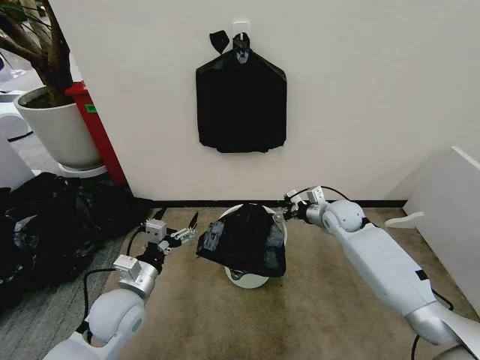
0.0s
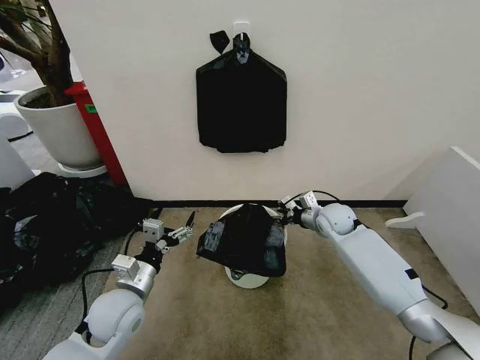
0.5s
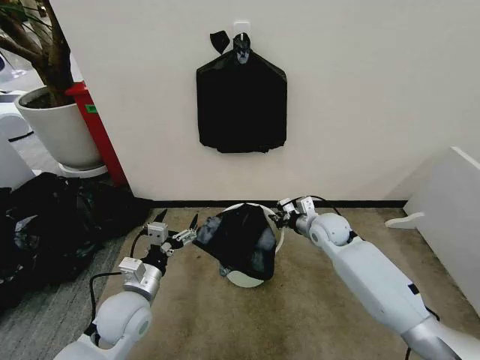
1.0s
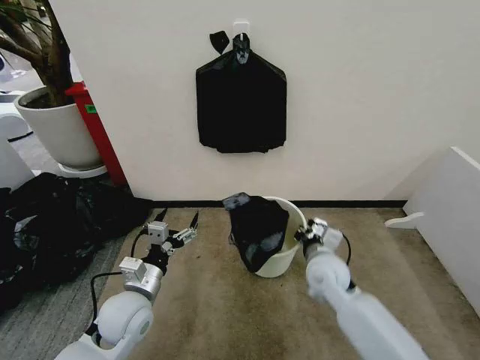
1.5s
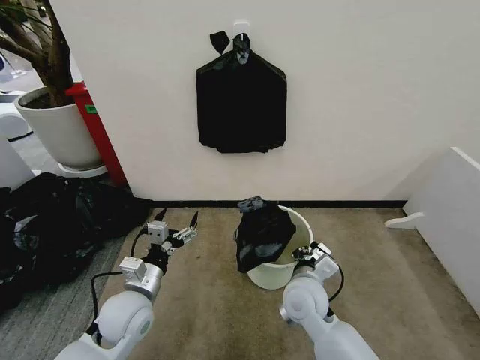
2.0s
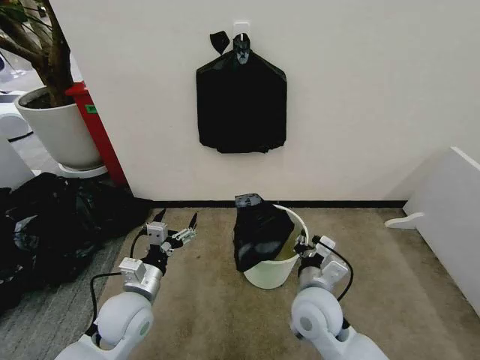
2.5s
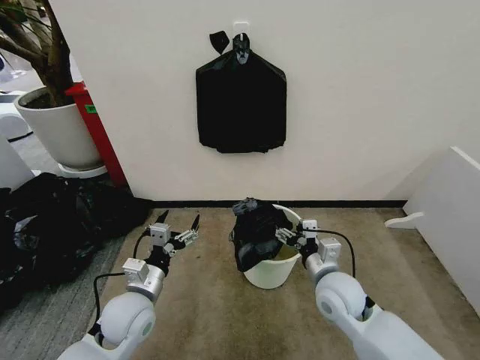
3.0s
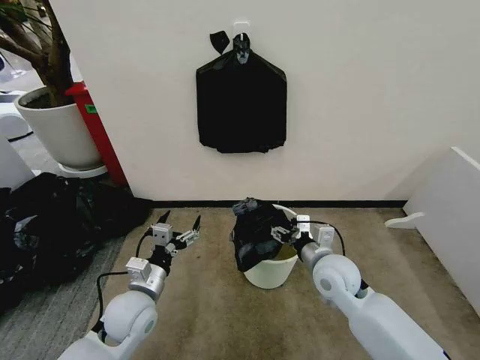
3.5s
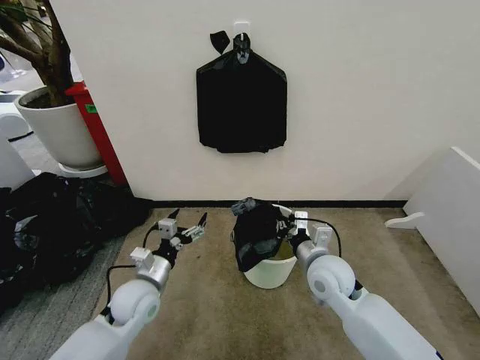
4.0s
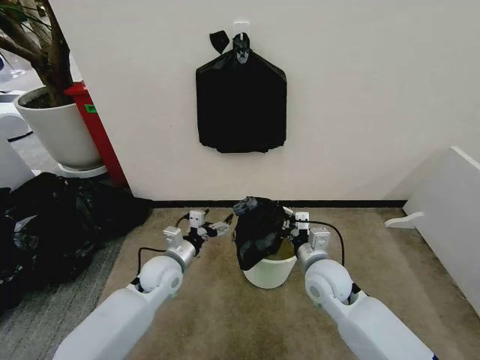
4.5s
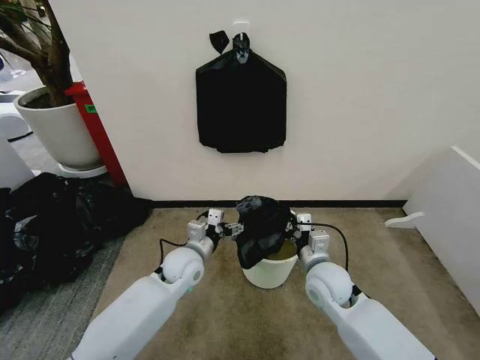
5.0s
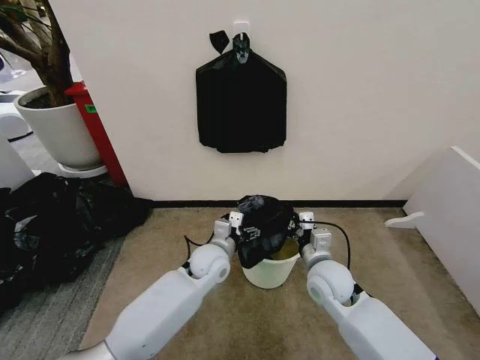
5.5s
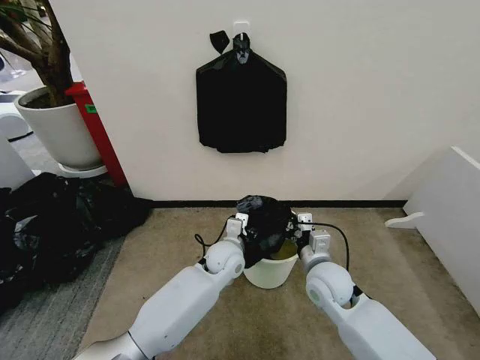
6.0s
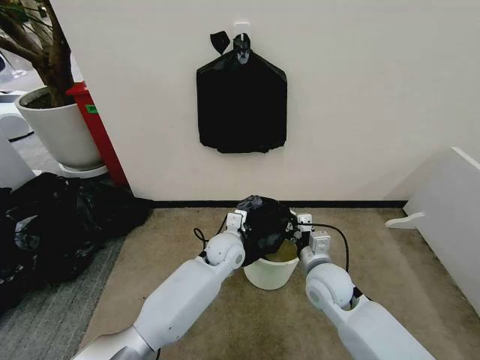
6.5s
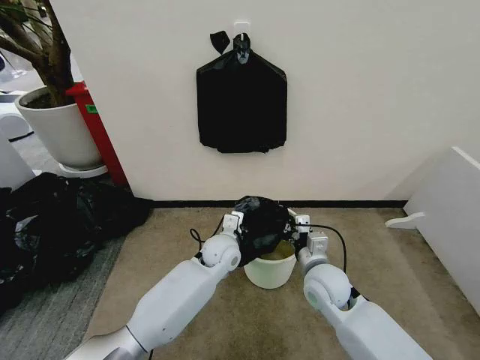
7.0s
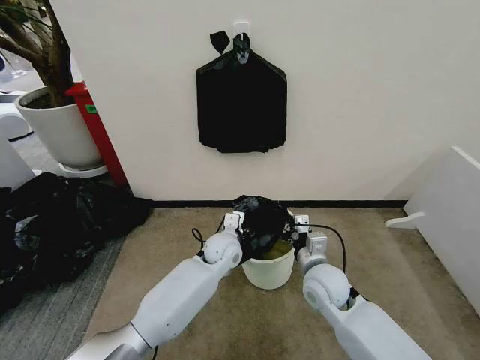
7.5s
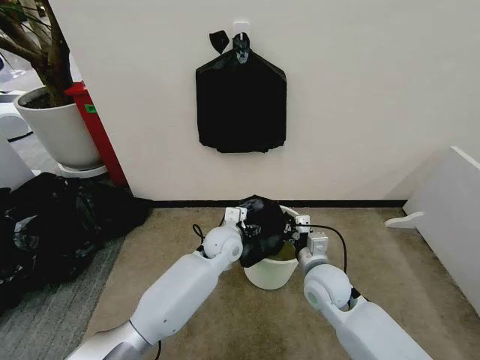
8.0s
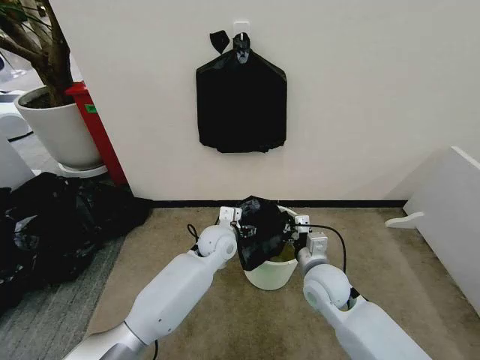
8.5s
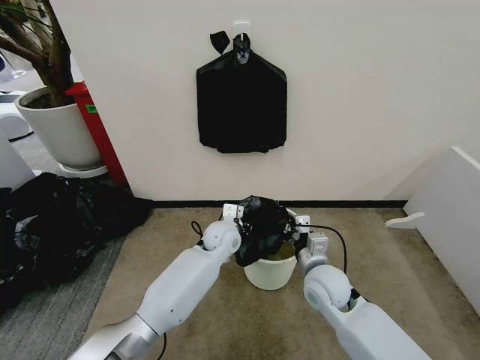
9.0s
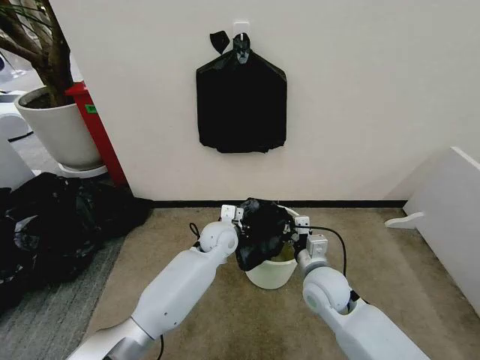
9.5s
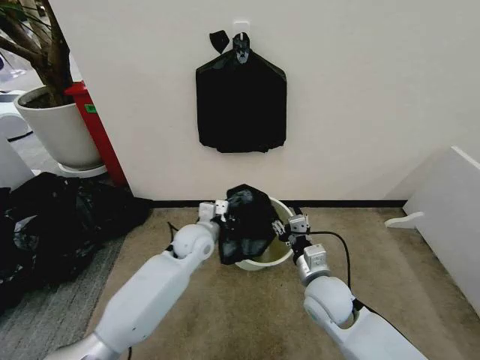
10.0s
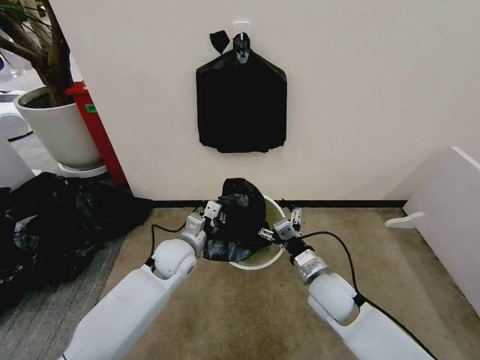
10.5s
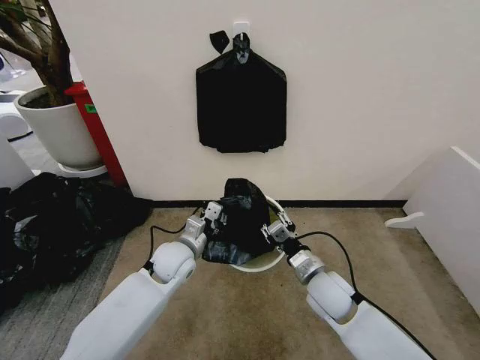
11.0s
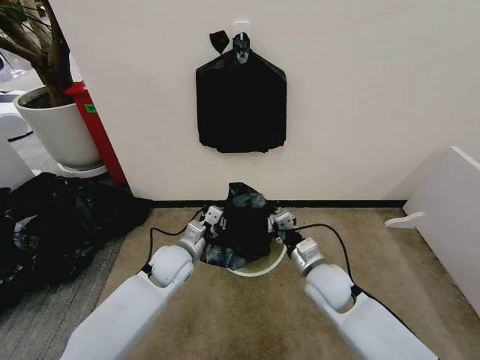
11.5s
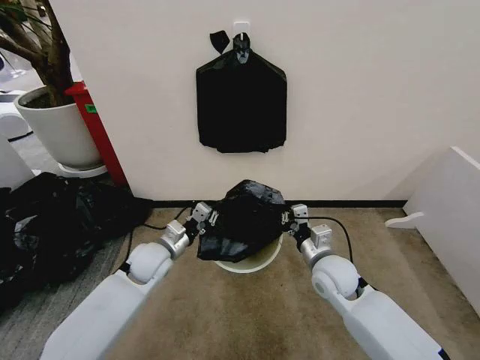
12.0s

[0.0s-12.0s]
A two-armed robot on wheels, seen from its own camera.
Task of the whole recording: Place the garbage bag over the trash bin.
0.0s to 2.0s: The right gripper shifts roughly 25 cm backward and to the left, and closes its fingers.
2.0s to 4.0s: The right gripper goes roughly 5 cm to the right, and opens and closes again.
4.0s to 6.0s: The left gripper is displaced to the right and forward by about 20 cm.
6.0s to 8.0s: The left gripper closes, then reopens.
8.0s to 10.0s: The right gripper opens its fingers. The left gripper goes about 10 cm to the left, and closes.
10.0s to 12.0s: The right gripper changes place by roughly 5 cm, and closes up. The left gripper is displaced to the left by about 10 cm.

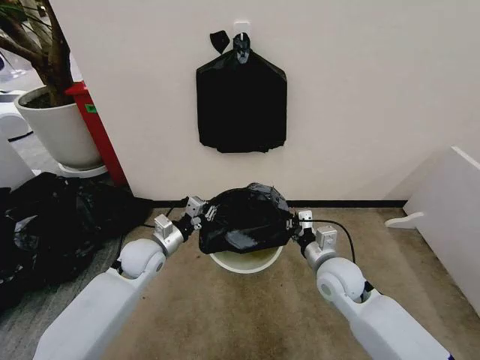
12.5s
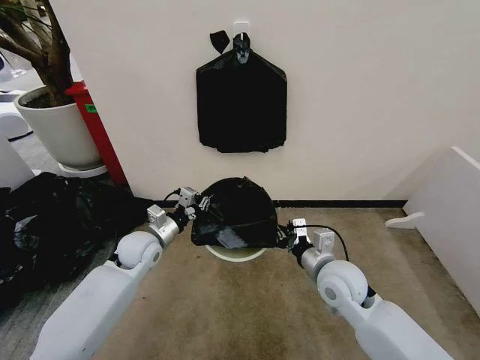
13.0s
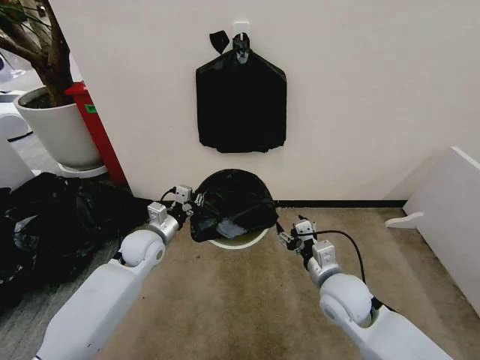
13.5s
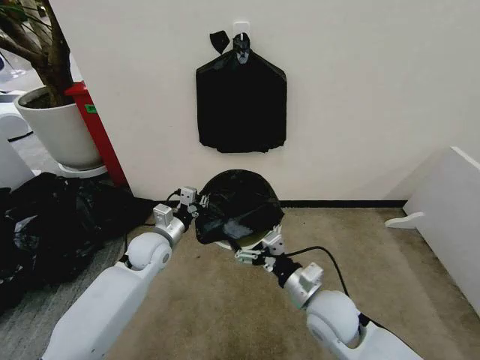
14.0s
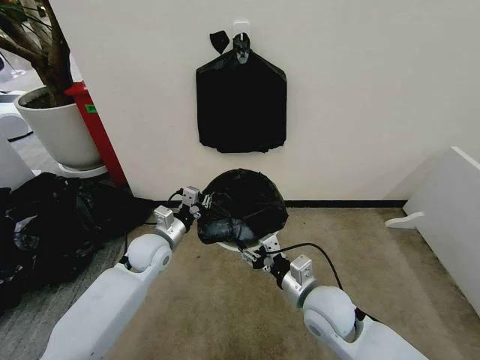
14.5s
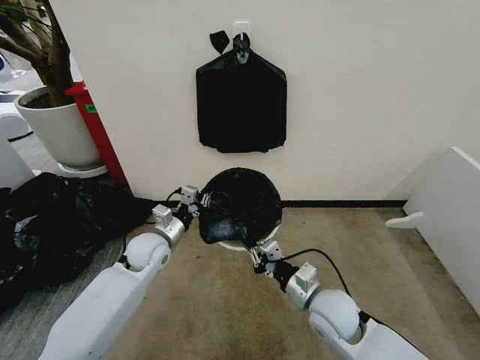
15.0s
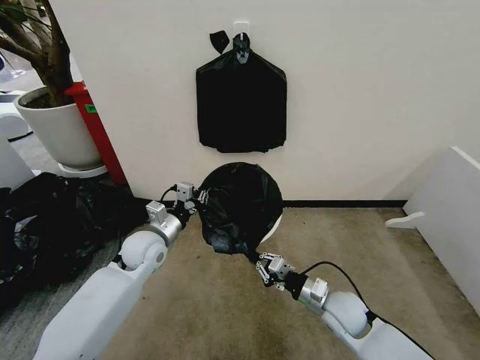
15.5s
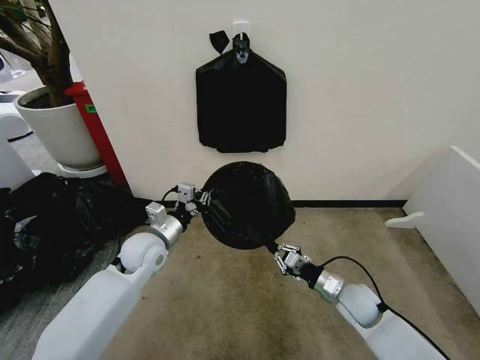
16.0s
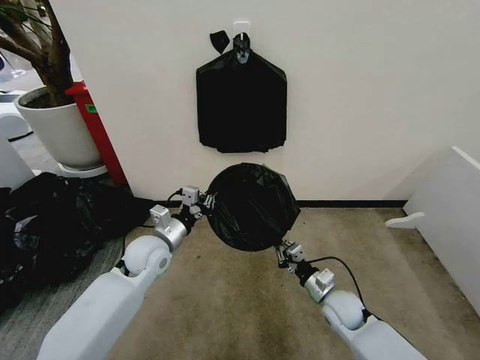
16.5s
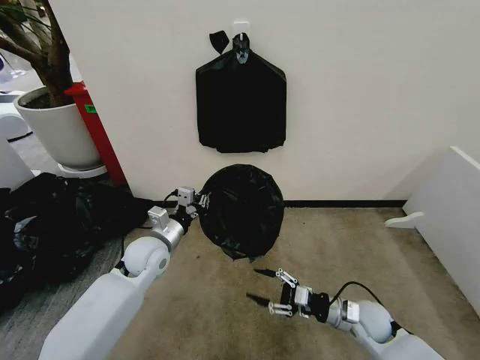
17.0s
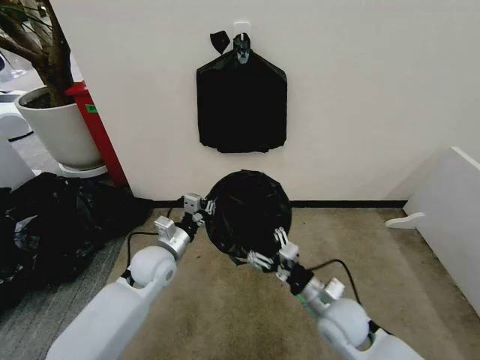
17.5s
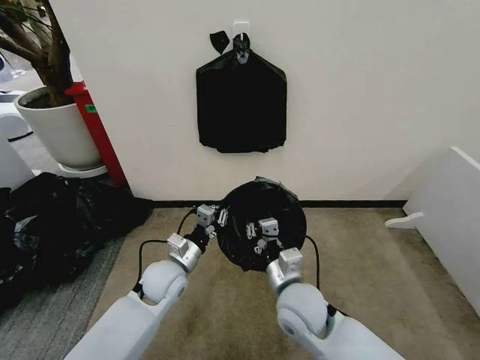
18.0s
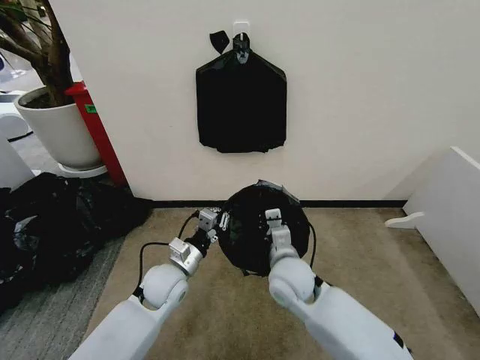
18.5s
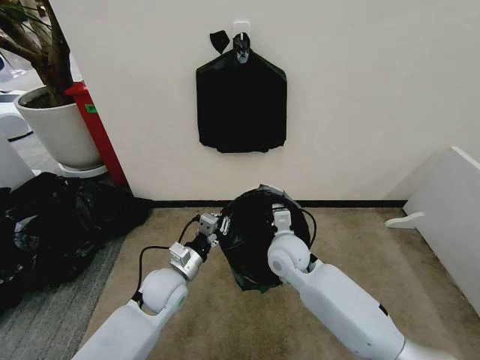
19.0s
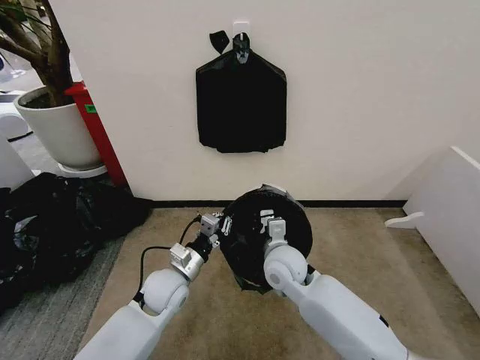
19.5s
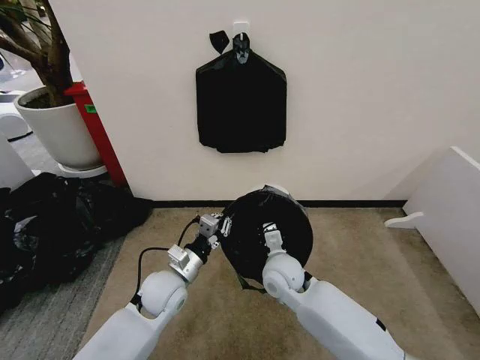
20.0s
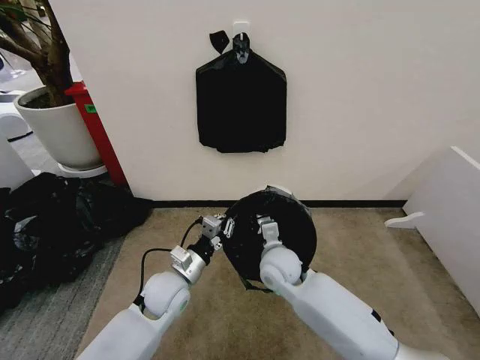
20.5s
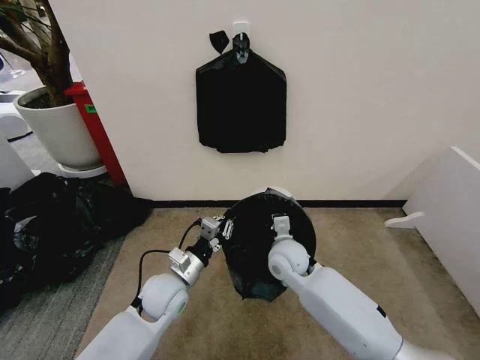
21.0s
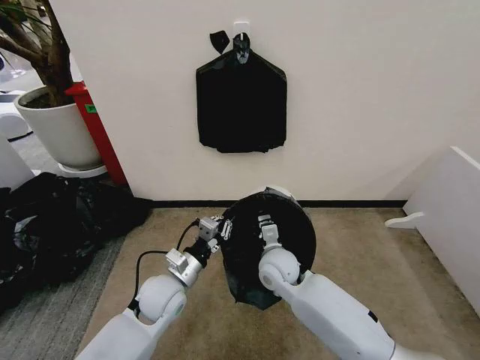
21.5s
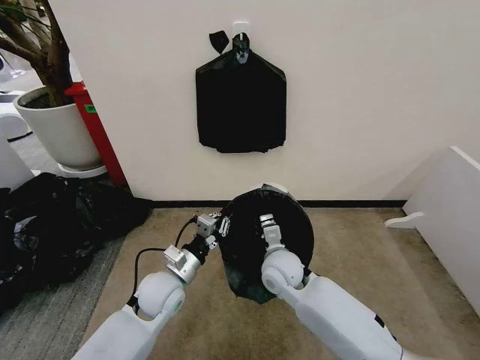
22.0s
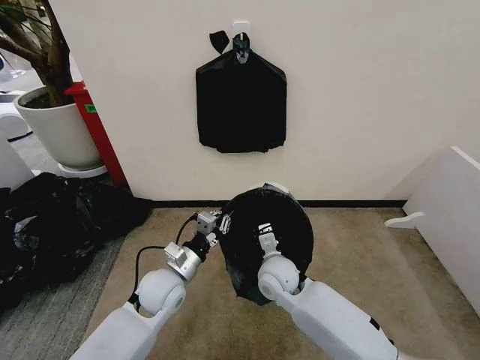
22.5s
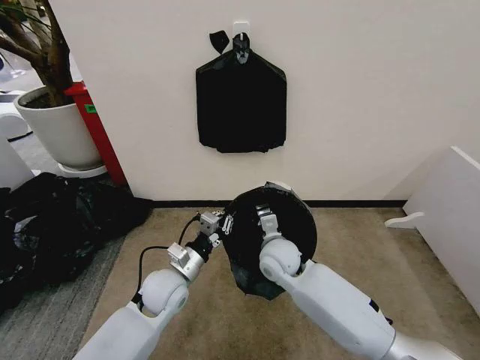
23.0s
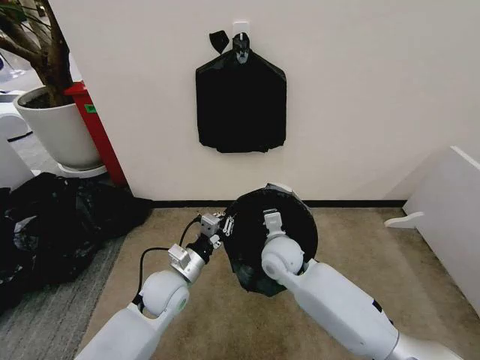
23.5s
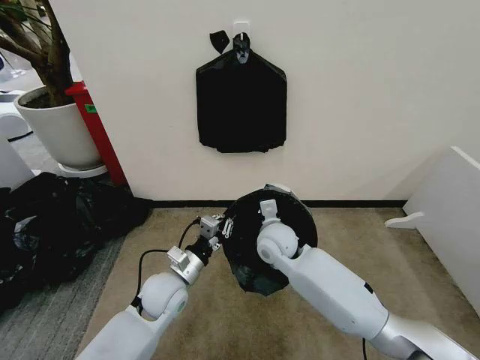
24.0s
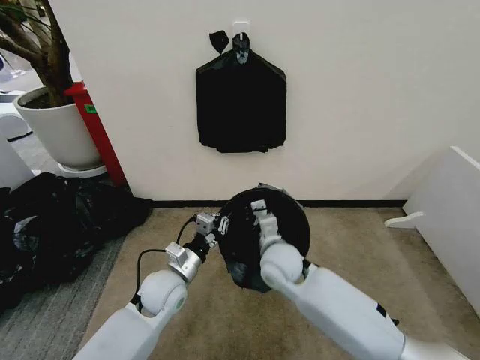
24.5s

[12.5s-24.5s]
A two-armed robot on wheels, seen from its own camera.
Task of the whole recording: Place the garbage bag over the trash bin.
12.5s to 14.5s: The right gripper travels backward by about 5 cm, and opens its fingers.
14.5s to 16.5s: The right gripper shifts approximately 15 cm downward and to the right, and closes.
16.5s to 18.5s: The left gripper is displaced downward by some 5 cm. Meanwhile the right gripper goes roughly 20 cm to the left and upward, and opens, then closes once more.
18.5s to 20.5s: The right gripper changes place by about 5 cm.
20.5s to 22.5s: The grippers stay close to where they were, moving slightly.

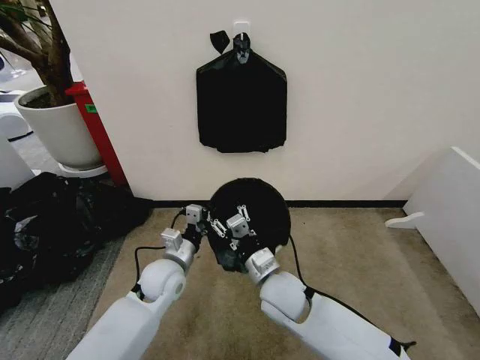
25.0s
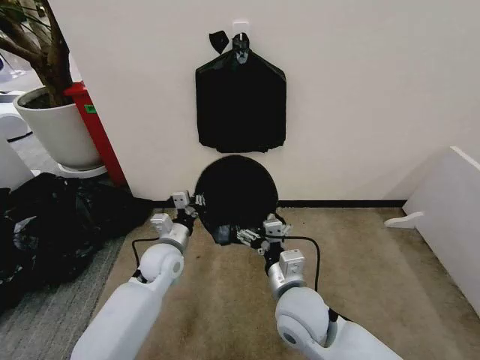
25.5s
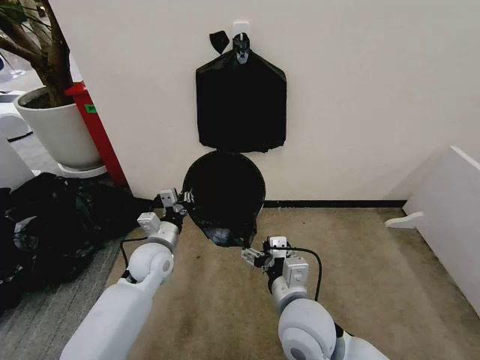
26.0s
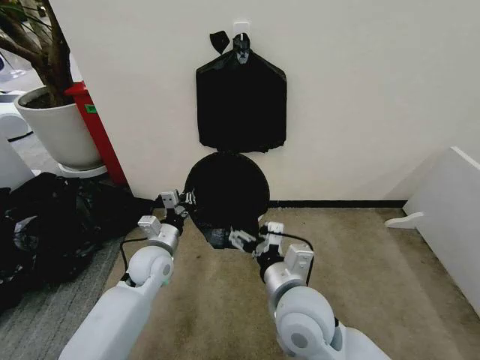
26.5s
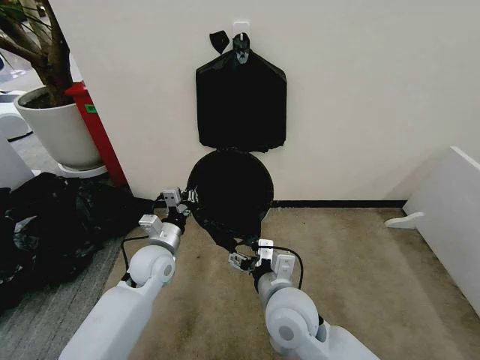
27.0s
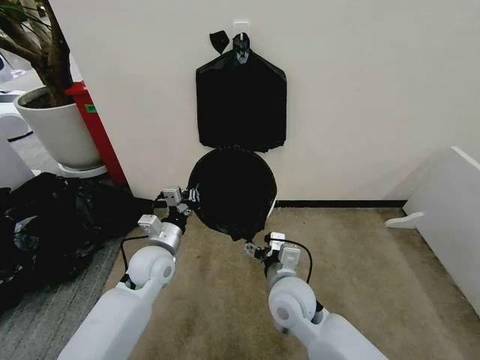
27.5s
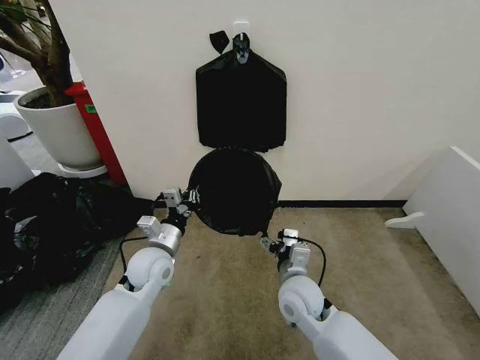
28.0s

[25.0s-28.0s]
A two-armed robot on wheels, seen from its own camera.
Task of the whole recording: Place the garbage bag over the trash bin.
25.0s to 26.5s: The right gripper heads upward and backward, covering some 10 cm, and opens up.
26.5s to 28.0s: The right gripper shifts about 15 cm downward and forward.
